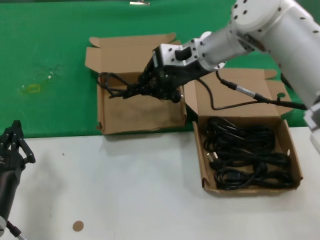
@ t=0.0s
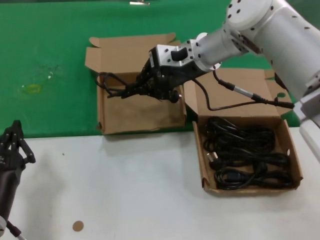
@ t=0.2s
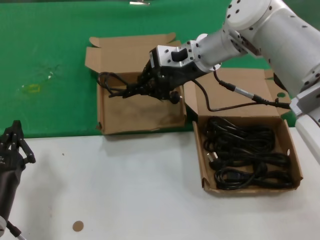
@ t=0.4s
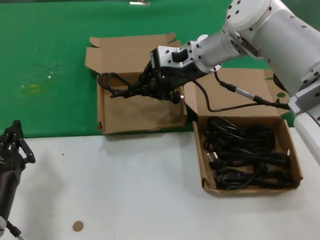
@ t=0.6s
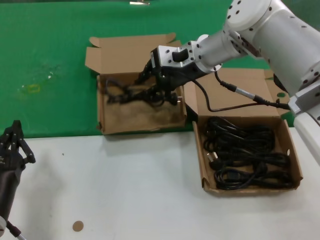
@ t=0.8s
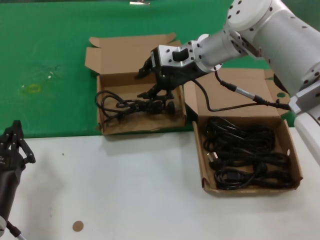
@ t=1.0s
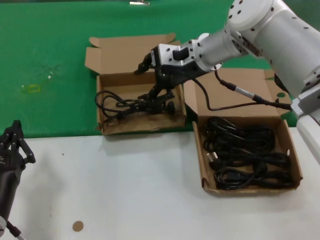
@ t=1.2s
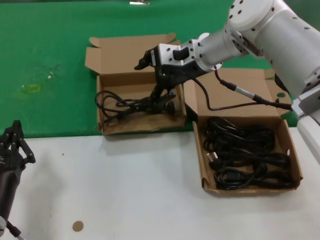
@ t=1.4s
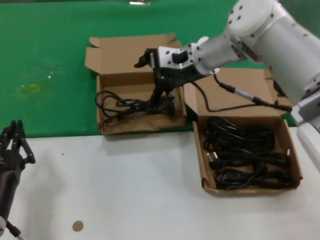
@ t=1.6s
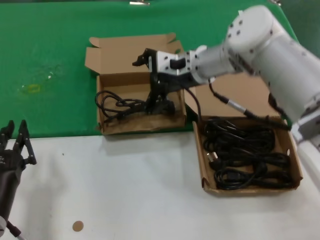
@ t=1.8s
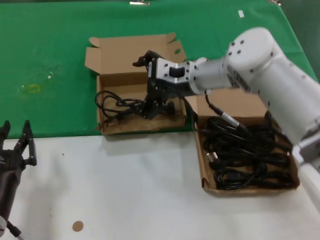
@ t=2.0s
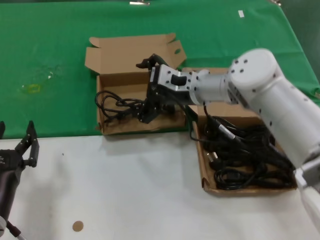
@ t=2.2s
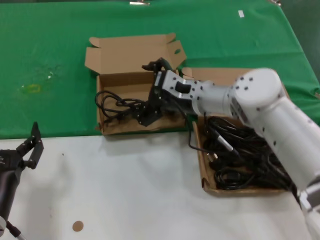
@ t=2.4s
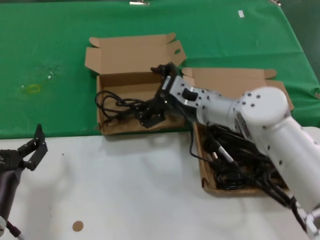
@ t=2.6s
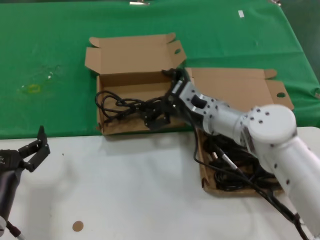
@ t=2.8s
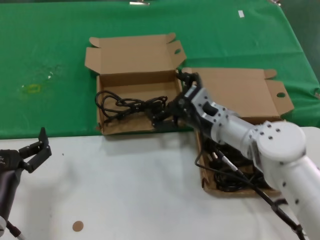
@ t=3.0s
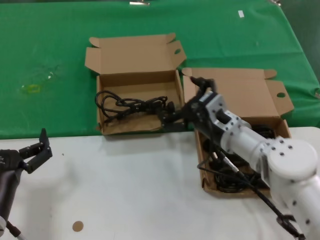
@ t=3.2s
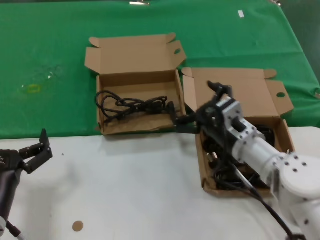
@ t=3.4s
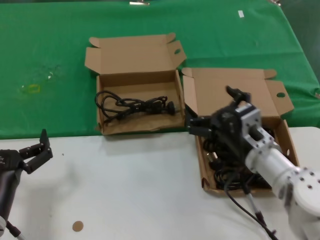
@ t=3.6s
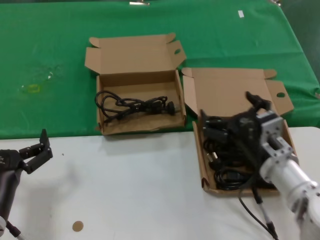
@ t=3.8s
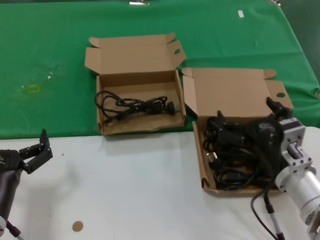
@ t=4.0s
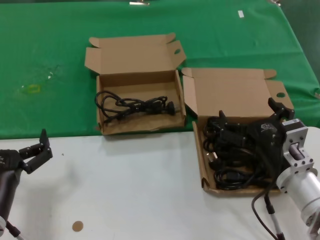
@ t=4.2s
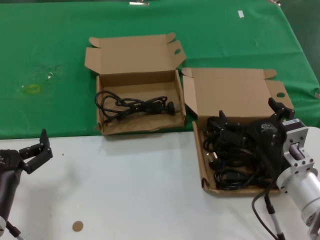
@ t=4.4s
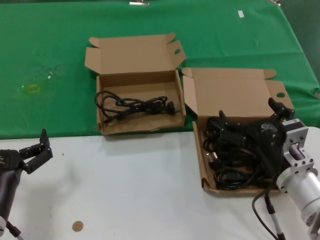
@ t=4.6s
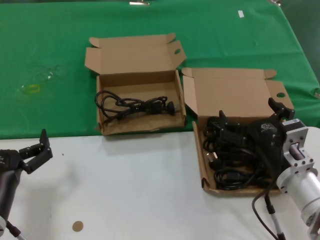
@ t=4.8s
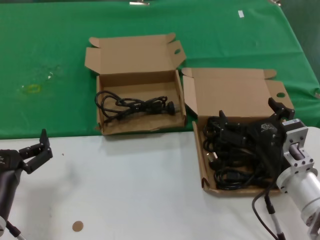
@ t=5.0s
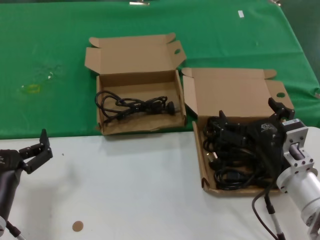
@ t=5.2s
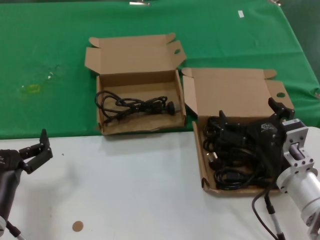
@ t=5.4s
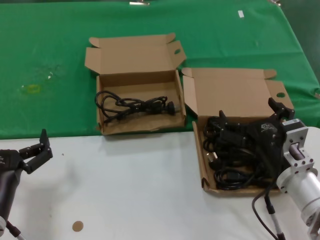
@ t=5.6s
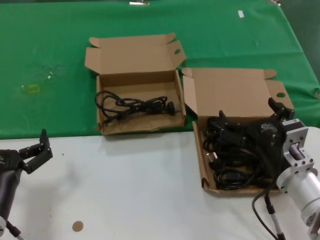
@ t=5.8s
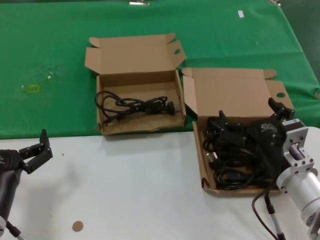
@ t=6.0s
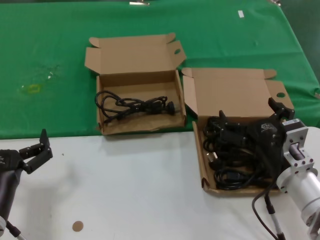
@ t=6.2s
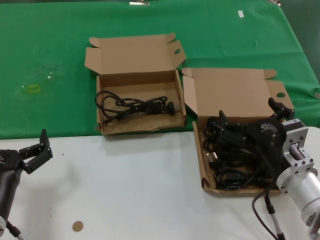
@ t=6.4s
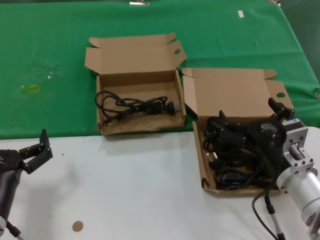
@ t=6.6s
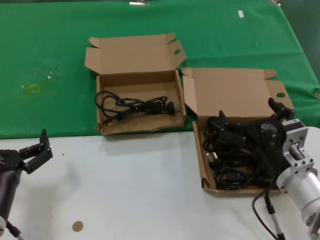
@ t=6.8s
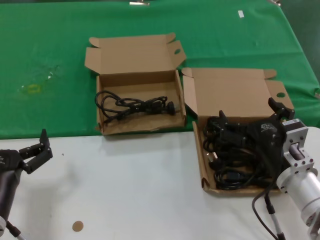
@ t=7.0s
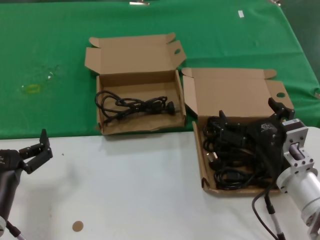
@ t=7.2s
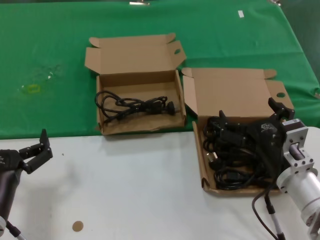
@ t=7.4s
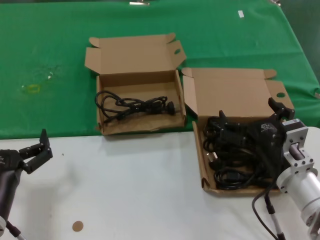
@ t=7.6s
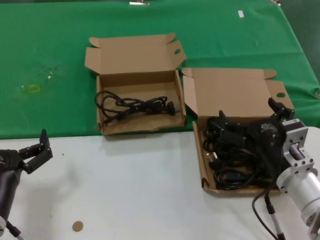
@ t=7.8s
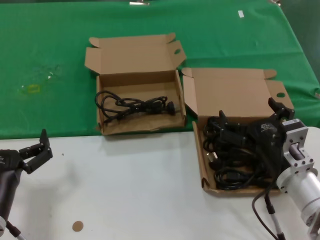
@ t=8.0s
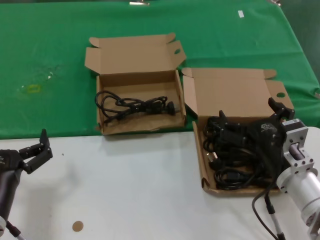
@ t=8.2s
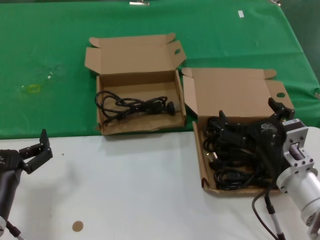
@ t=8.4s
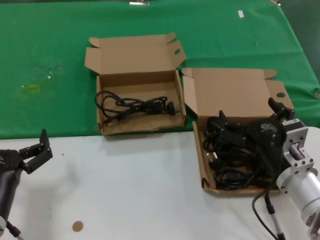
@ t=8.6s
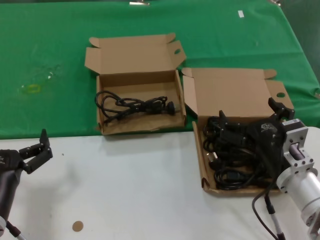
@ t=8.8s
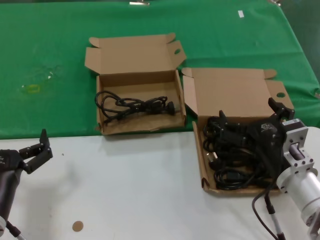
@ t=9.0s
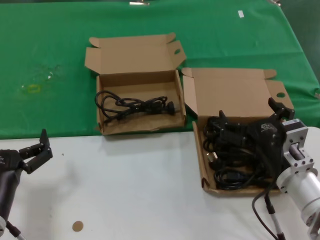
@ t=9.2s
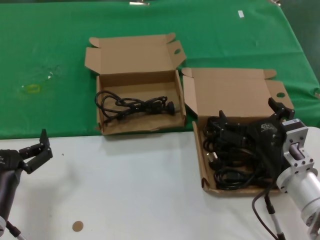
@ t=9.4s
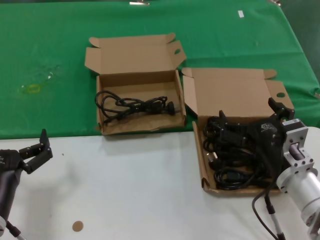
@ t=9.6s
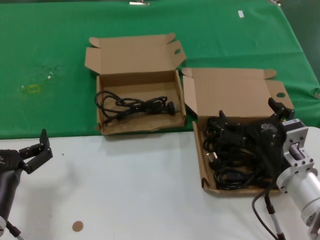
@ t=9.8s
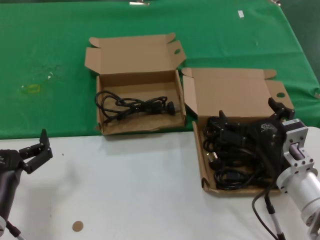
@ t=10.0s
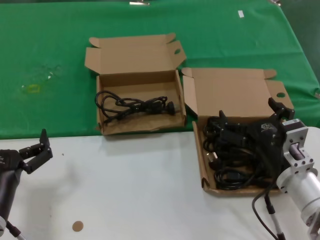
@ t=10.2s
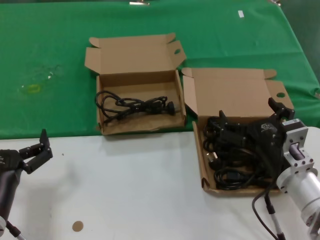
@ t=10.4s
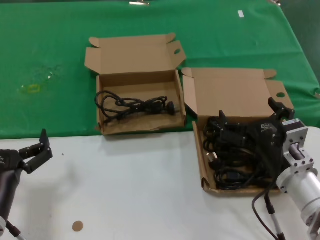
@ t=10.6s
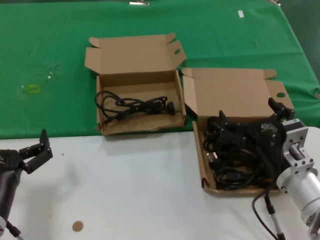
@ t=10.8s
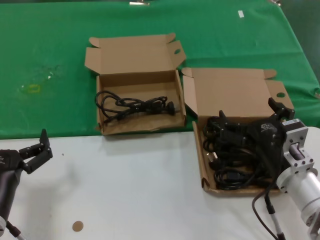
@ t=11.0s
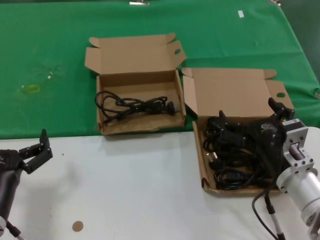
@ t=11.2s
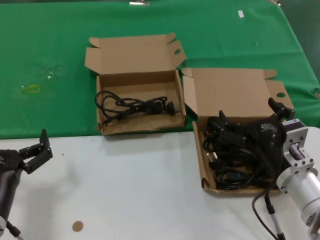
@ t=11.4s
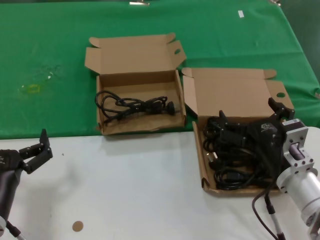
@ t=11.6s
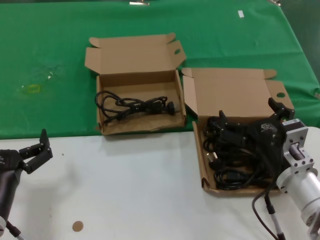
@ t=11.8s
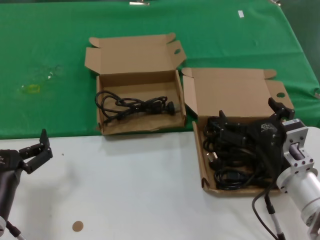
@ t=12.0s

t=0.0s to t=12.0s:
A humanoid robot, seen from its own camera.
Task of the whole recording: take the parts from the box containing them and put them into an empty box.
t=0.0s to t=1.6s: The hands stay close to where they were, moving slightly.
t=1.6s to t=3.0s: The right hand travels downward and backward by about 20 cm.
t=3.0s to t=4.4s: The right hand is displaced backward and to the right by approximately 15 cm.
t=4.4s to t=12.0s: Both hands stay about where they are.
